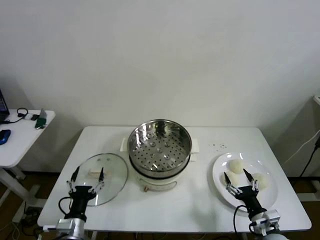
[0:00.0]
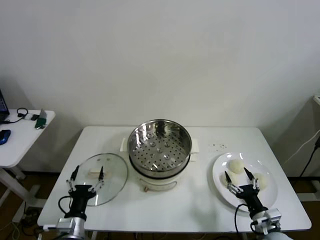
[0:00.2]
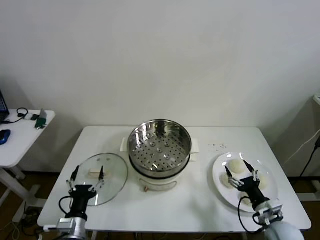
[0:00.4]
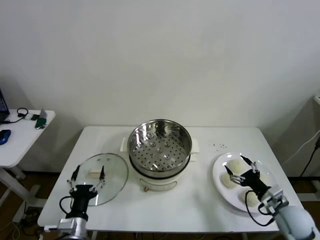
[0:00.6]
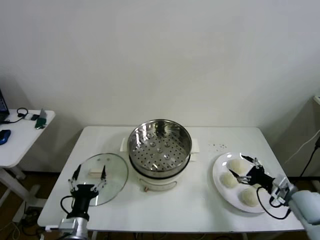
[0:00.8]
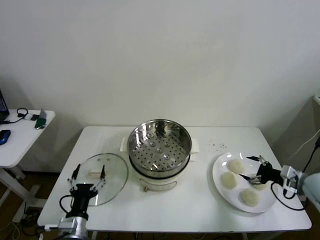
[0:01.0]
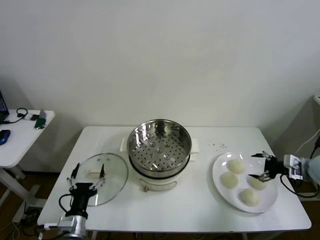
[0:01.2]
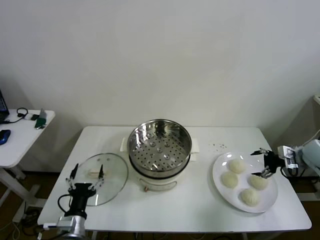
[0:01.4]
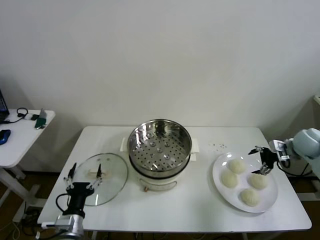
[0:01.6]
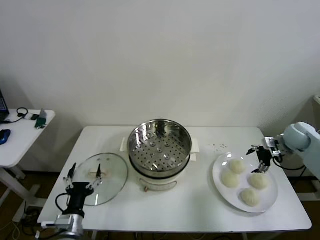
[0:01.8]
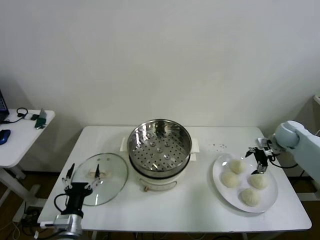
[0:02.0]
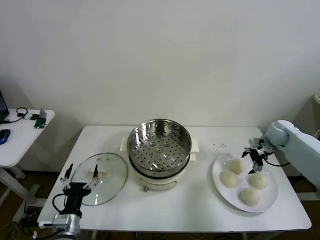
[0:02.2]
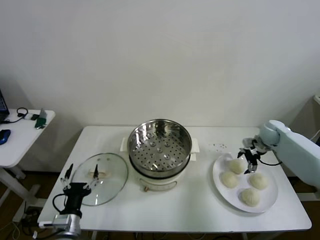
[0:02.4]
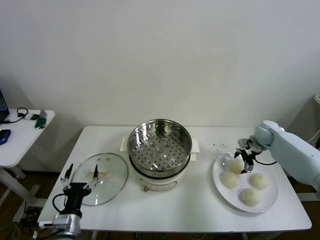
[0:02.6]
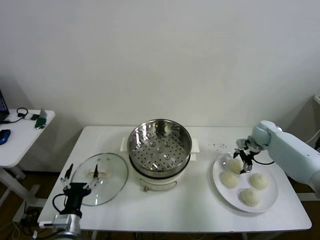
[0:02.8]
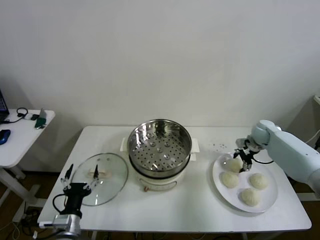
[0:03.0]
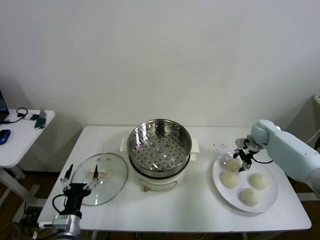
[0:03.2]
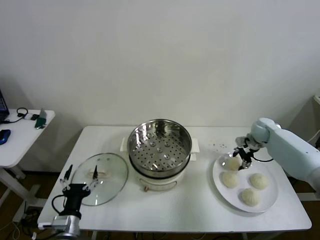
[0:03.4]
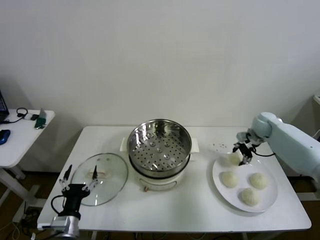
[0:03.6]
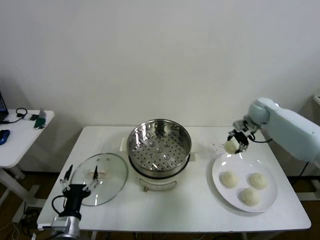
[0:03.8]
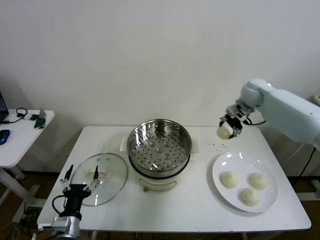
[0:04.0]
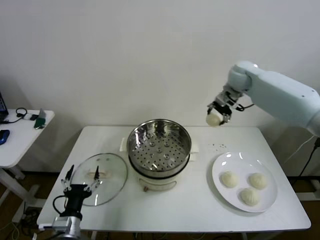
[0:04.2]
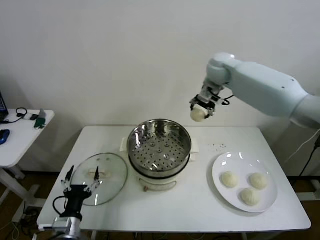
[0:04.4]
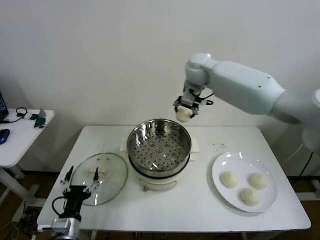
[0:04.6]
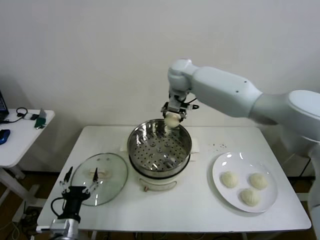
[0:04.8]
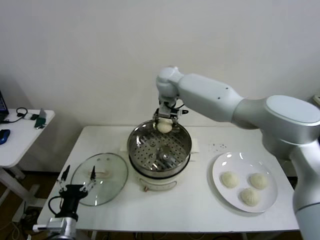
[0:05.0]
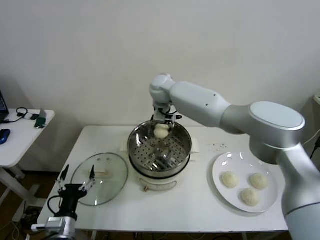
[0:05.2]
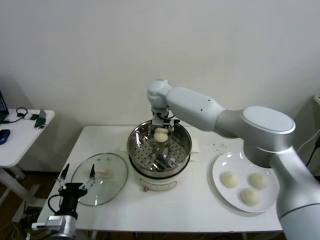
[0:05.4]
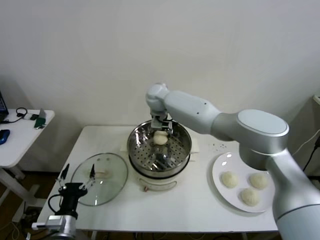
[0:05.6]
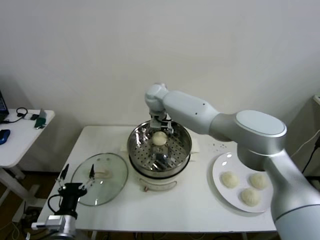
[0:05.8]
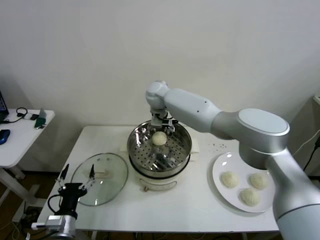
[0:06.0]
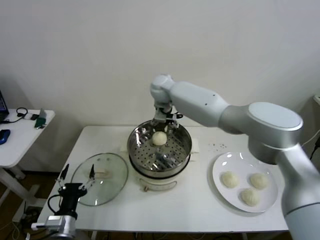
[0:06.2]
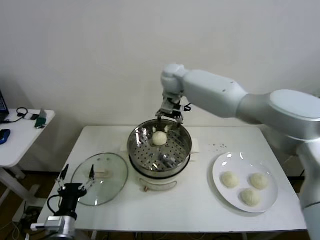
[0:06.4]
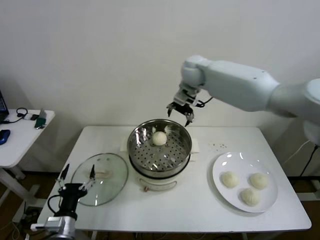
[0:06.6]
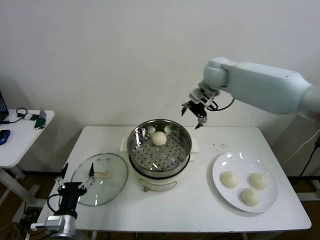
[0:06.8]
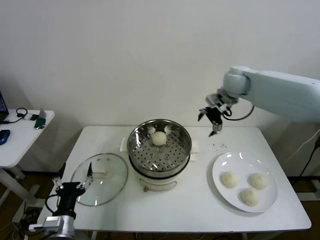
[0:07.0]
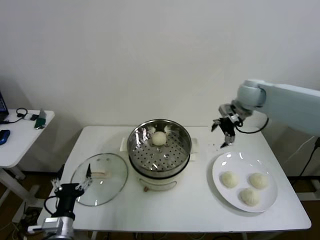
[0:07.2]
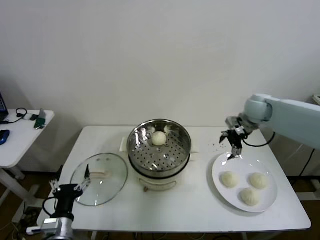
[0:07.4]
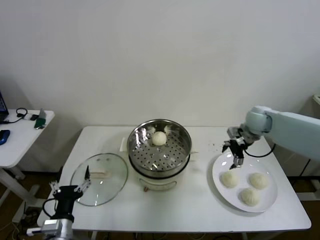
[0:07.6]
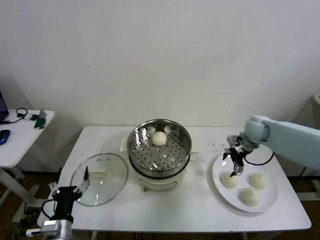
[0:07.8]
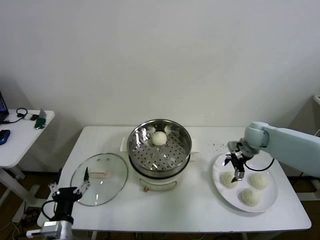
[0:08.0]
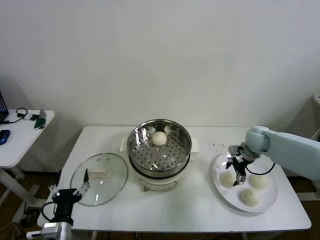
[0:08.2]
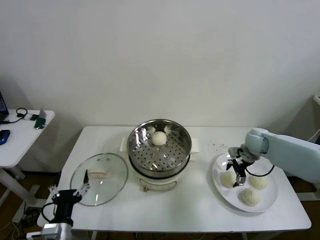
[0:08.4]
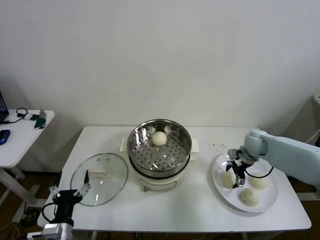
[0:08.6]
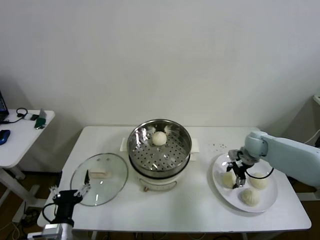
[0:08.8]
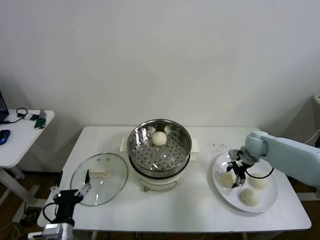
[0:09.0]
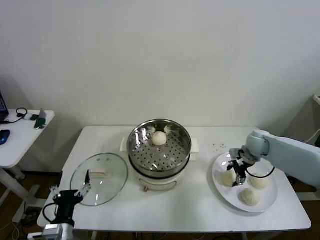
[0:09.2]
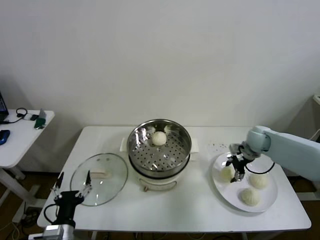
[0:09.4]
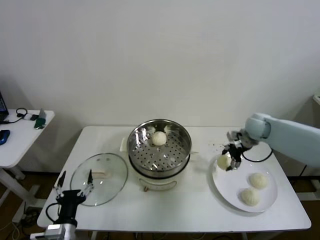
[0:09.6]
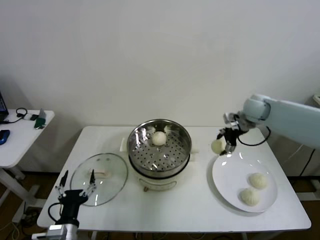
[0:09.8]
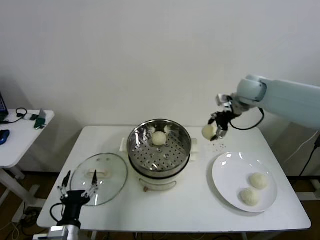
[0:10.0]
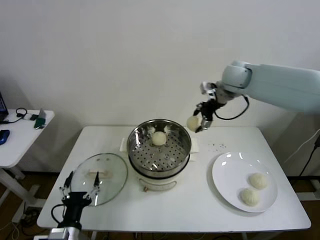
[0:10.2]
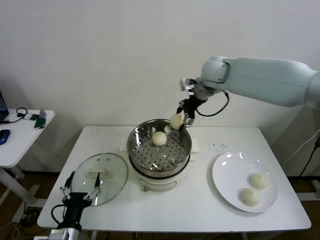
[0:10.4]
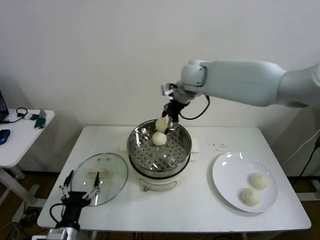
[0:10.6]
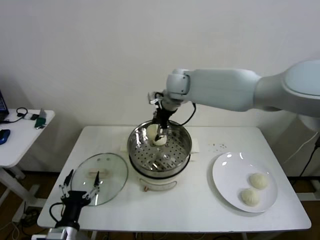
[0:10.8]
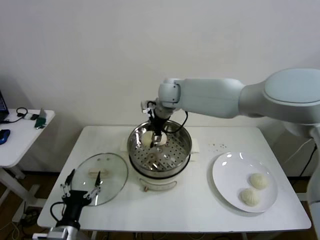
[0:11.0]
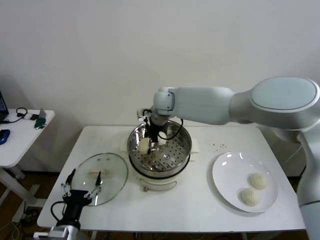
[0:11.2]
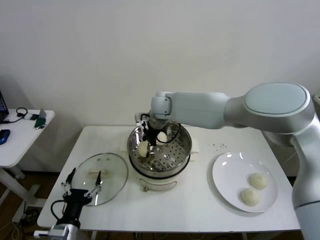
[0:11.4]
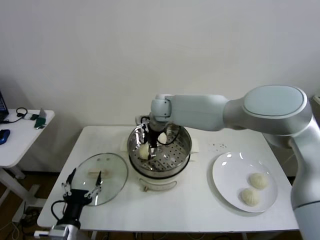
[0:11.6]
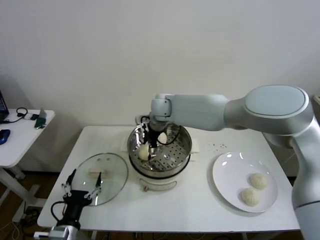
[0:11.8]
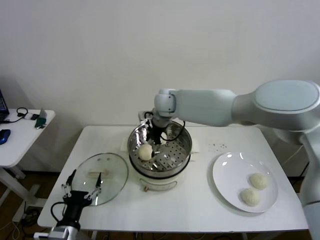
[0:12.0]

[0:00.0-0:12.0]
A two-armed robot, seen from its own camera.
Step, 0:00.0 to 0:03.0: Grasp the baozi in the plate with right gripper.
Step, 0:03.2 to 0:06.0: Place the baozi on the steamer with right gripper.
Step, 0:06.2 to 0:09.0: Grasp the baozi in the plate with right gripper.
Step, 0:09.2 to 0:12.0: Place the baozi on the steamer with right gripper.
0:01.6 to 0:03.0: The right gripper shifts about 15 cm forward, to the left and downward, and closes its fingers.
0:03.0 to 0:04.4: The right gripper moves upward and to the left, about 35 cm.
0:04.4 to 0:06.0: The right gripper heads to the left and downward, covering roughly 20 cm, and opens up.
0:06.0 to 0:07.6: The right gripper heads to the right, covering roughly 35 cm.
0:07.6 to 0:09.0: The right gripper shifts about 10 cm downward, and closes.
0:09.0 to 0:10.4: The right gripper travels upward and to the left by roughly 35 cm.
0:10.4 to 0:12.0: The right gripper moves to the left and downward, some 15 cm, and opens.

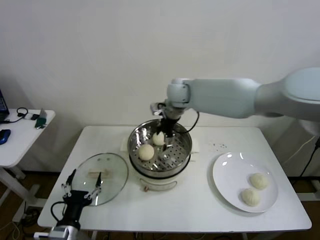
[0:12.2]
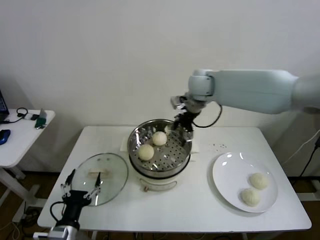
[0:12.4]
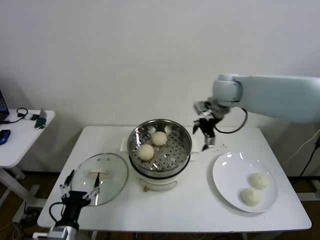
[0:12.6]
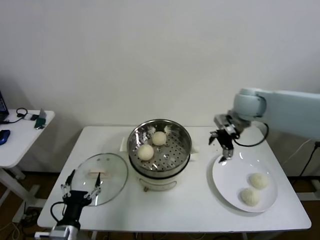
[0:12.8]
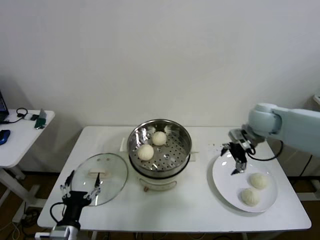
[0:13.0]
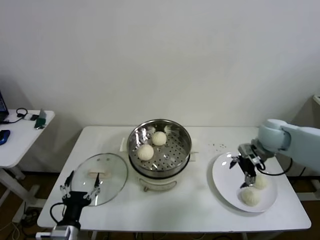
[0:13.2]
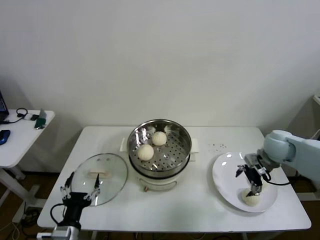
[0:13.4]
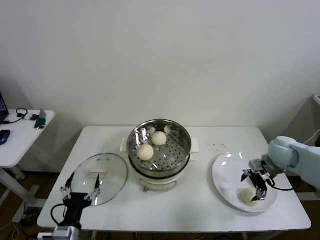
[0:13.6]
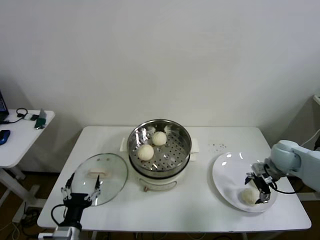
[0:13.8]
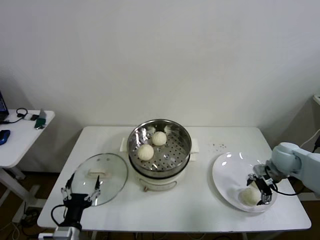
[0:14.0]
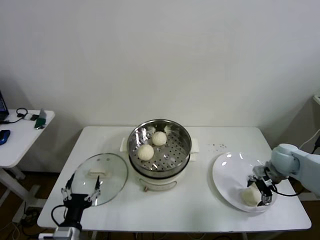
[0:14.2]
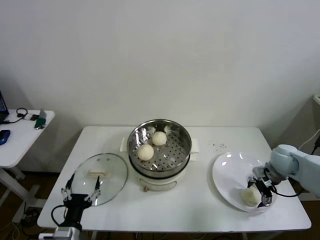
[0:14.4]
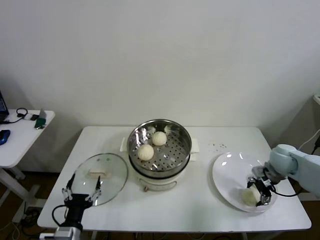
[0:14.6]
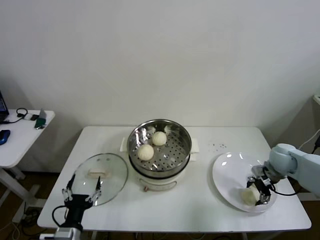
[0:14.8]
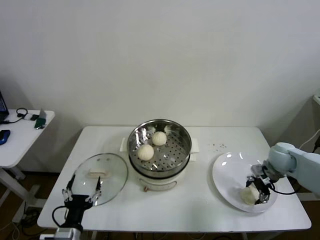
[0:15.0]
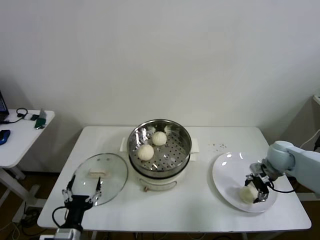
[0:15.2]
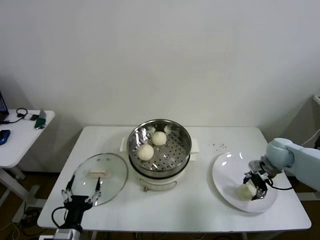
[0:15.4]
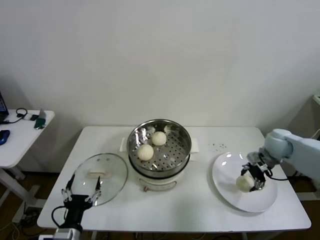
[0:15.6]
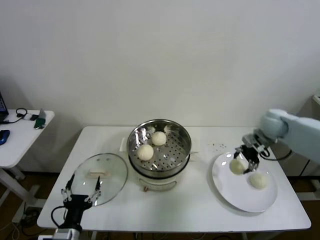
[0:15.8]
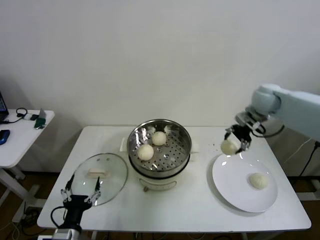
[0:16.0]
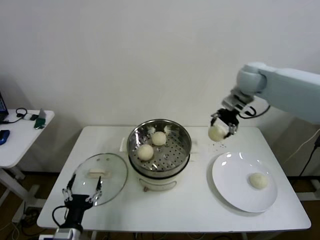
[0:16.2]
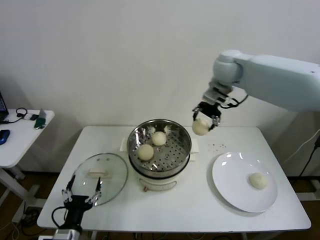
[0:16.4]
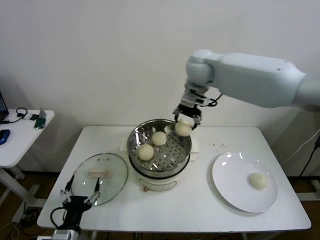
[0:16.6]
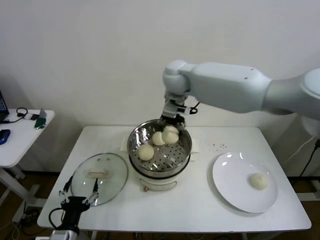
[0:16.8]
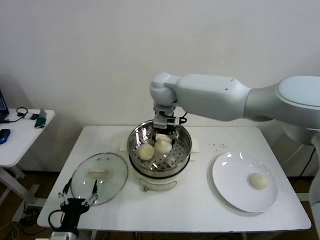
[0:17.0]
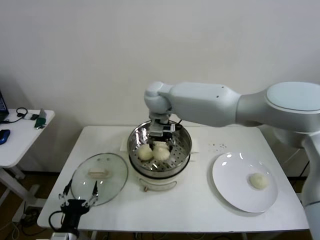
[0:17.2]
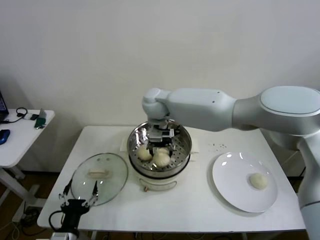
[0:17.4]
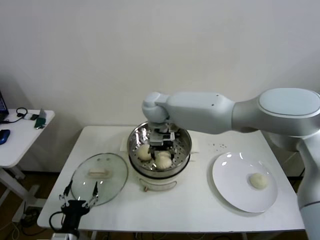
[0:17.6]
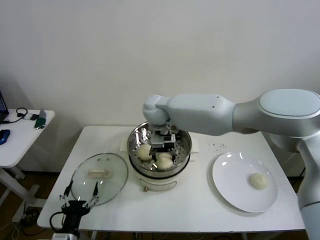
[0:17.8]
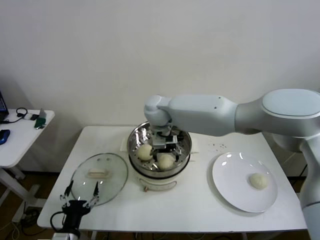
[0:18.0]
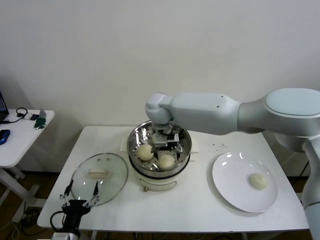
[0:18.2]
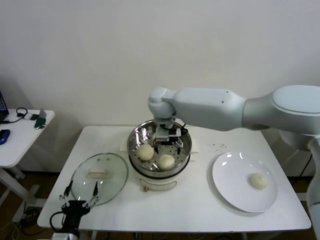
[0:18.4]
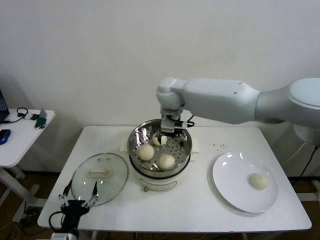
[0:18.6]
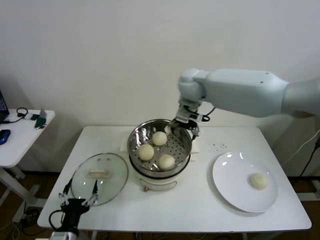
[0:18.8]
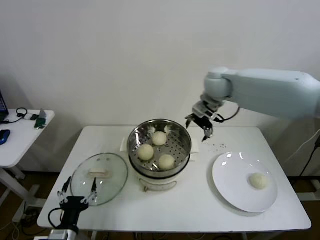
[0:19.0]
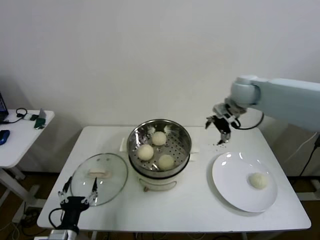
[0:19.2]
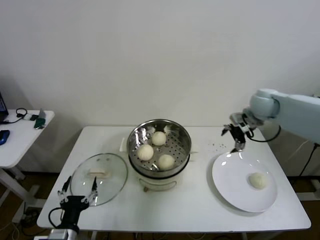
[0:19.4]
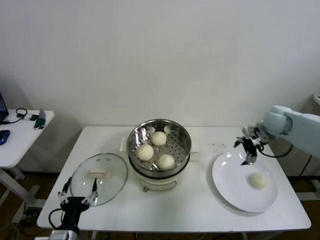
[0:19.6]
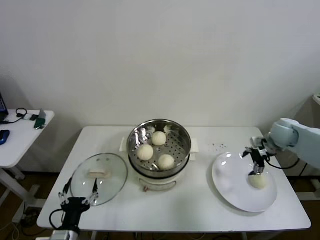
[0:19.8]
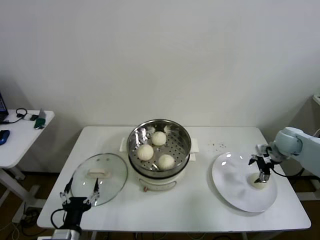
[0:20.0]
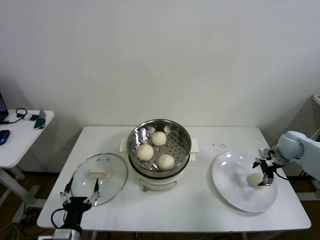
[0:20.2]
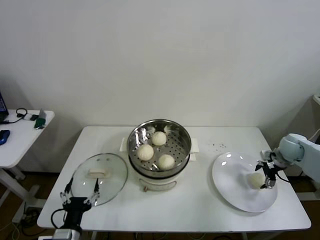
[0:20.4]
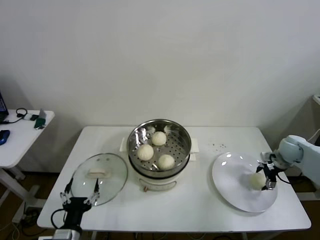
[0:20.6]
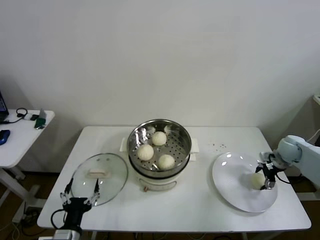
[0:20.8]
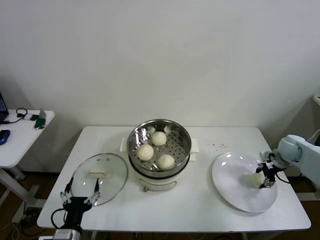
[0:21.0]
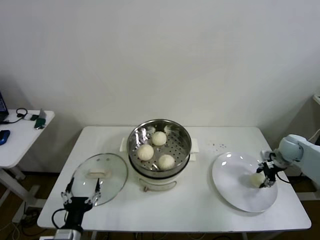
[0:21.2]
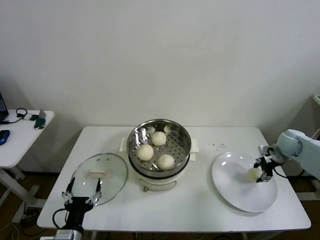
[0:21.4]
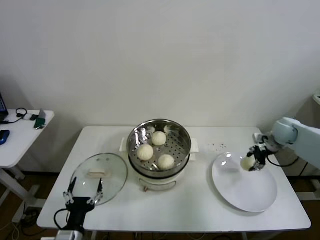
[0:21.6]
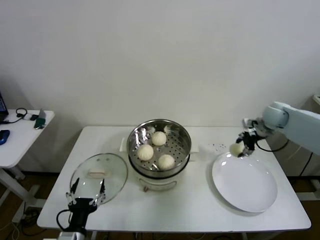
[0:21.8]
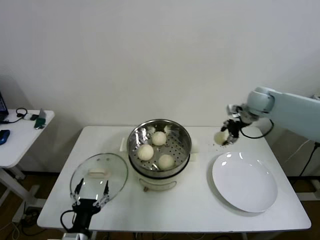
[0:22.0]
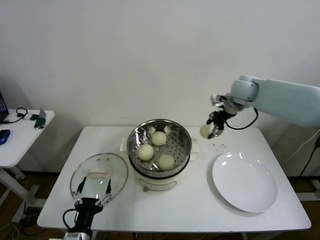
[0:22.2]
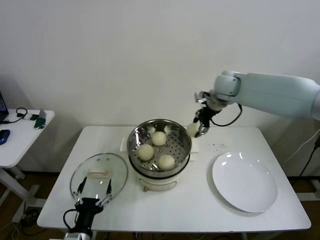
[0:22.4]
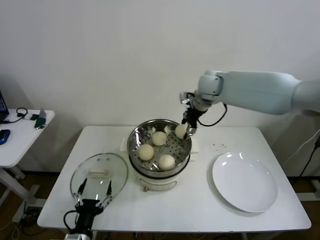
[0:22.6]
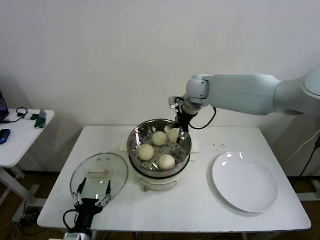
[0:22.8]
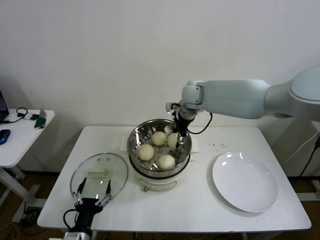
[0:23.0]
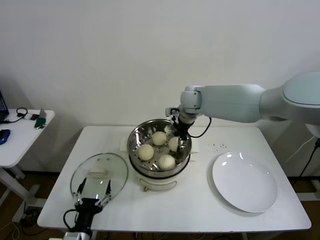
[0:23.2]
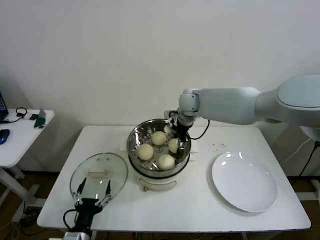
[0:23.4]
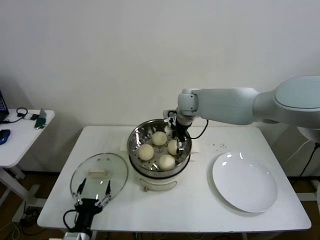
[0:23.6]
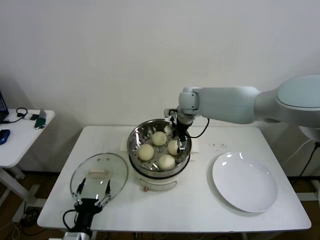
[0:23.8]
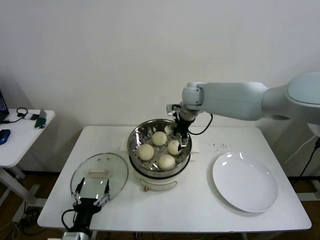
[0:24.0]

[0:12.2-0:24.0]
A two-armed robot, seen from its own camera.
Step, 0:12.2 to 0:14.8: Grasp the baozi in the plate with right gripper.
Step, 0:15.0 to 0:18.2: Place the baozi on the steamer with right gripper.
Step, 0:18.4 to 0:21.0: Grasp the baozi in the plate with right gripper.
0:12.2 to 0:13.6: The right gripper shifts approximately 40 cm to the right, downward and backward.
0:13.6 to 0:15.2: The right gripper closes up.
0:15.2 to 0:16.6: The right gripper moves to the left and upward, approximately 40 cm.
0:16.6 to 0:18.2: The right gripper shifts about 15 cm downward and to the left, and opens its fingers.
0:18.2 to 0:19.6: The right gripper is displaced to the right by roughly 40 cm.
0:19.6 to 0:21.0: The right gripper shifts about 15 cm downward and to the right, and closes its fingers.
0:21.0 to 0:22.6: The right gripper goes approximately 40 cm to the left and upward.
0:22.6 to 0:24.0: The right gripper goes roughly 5 cm to the left, and opens up.
